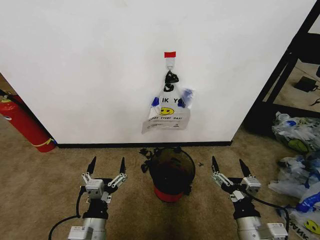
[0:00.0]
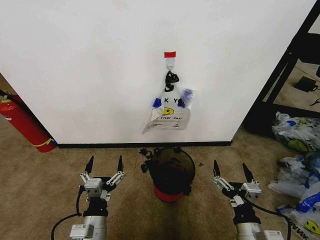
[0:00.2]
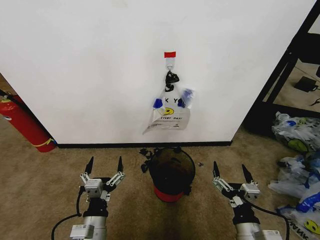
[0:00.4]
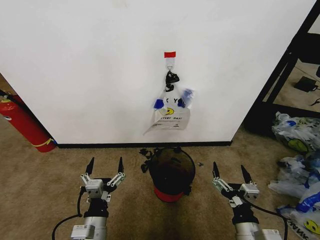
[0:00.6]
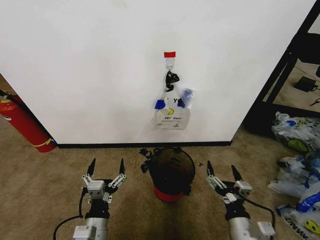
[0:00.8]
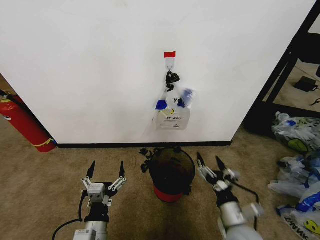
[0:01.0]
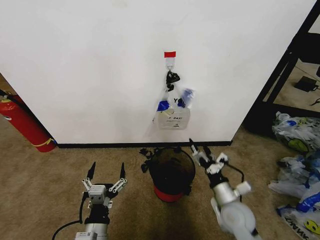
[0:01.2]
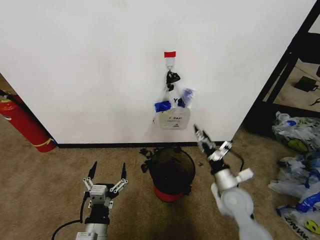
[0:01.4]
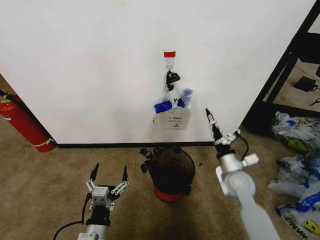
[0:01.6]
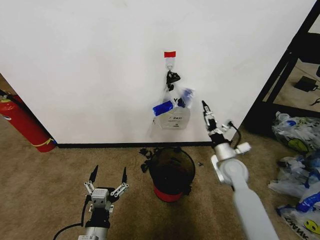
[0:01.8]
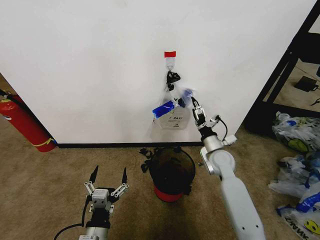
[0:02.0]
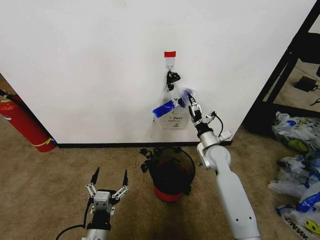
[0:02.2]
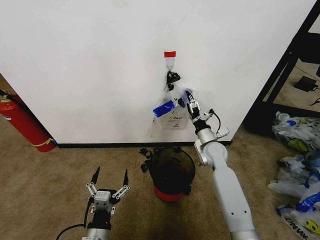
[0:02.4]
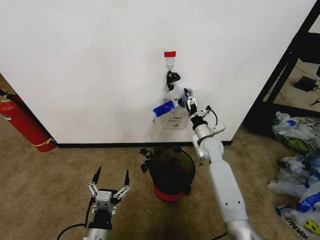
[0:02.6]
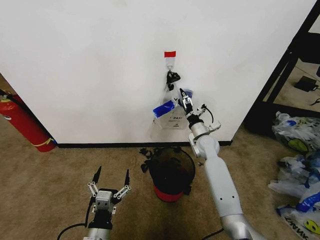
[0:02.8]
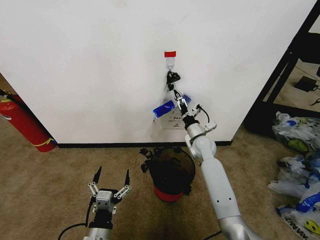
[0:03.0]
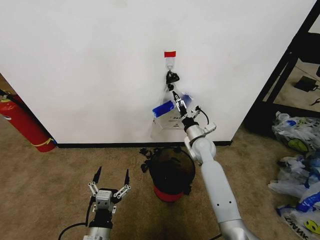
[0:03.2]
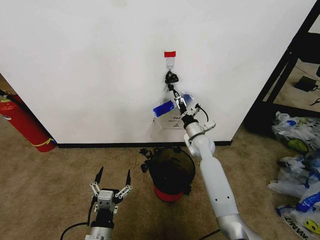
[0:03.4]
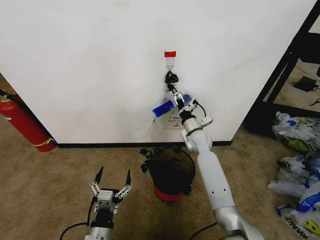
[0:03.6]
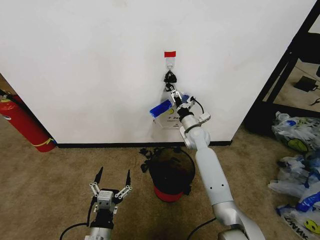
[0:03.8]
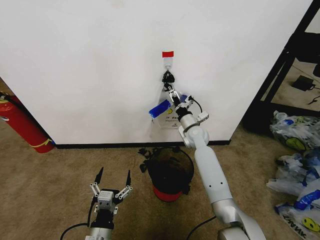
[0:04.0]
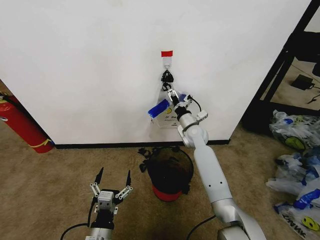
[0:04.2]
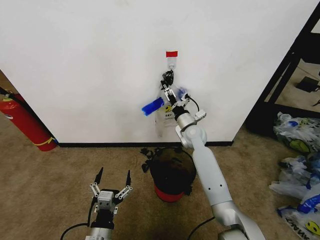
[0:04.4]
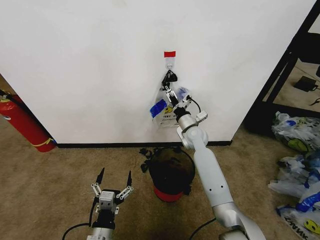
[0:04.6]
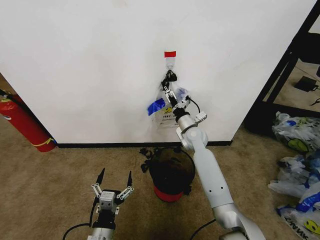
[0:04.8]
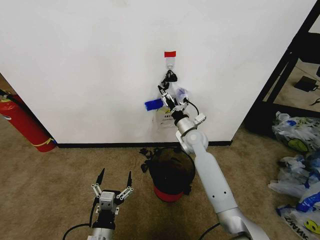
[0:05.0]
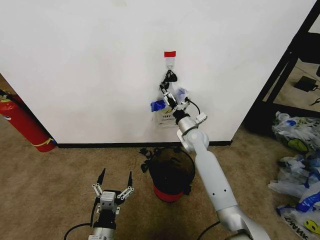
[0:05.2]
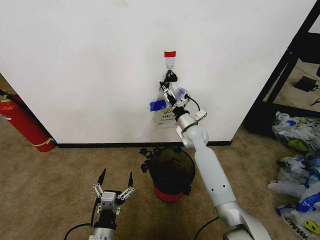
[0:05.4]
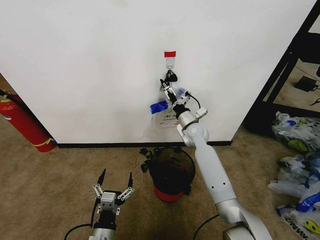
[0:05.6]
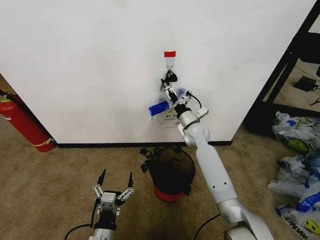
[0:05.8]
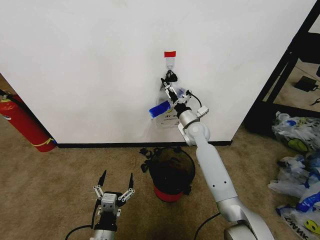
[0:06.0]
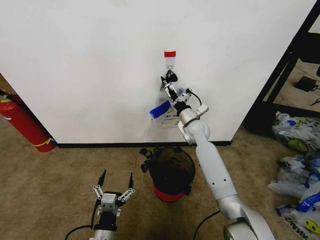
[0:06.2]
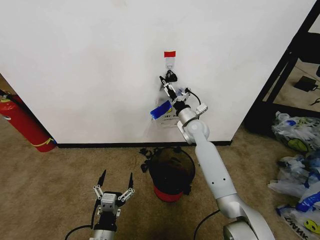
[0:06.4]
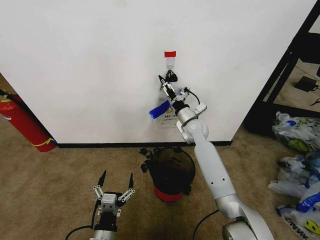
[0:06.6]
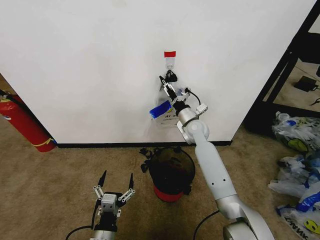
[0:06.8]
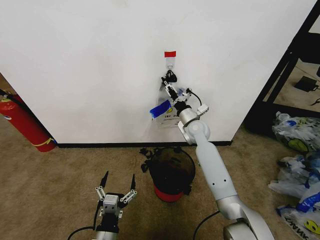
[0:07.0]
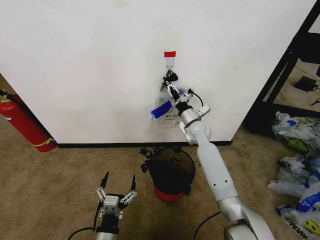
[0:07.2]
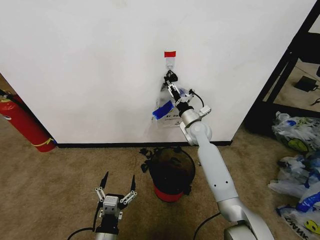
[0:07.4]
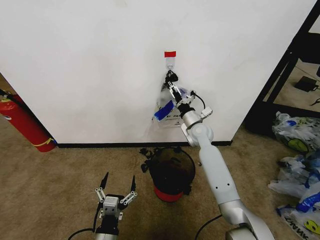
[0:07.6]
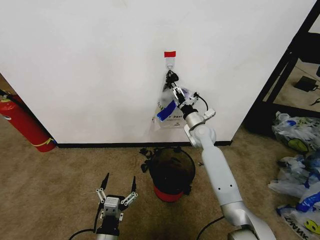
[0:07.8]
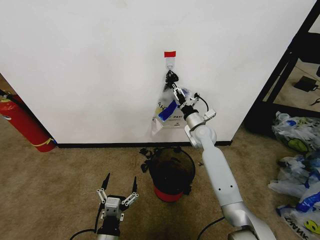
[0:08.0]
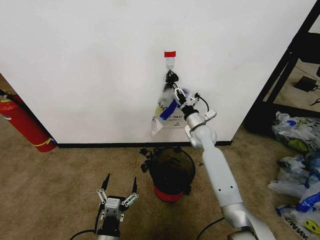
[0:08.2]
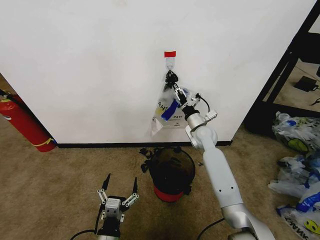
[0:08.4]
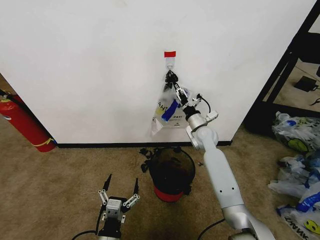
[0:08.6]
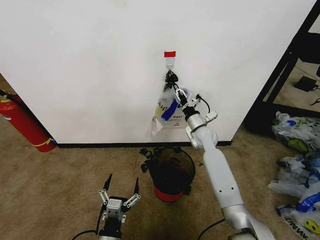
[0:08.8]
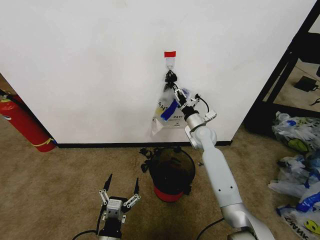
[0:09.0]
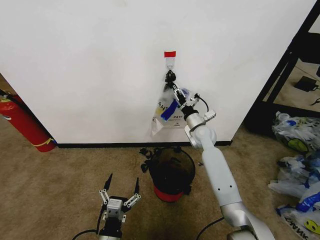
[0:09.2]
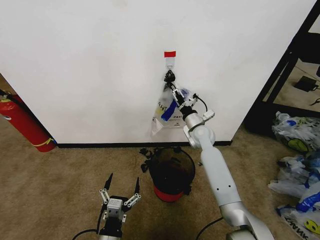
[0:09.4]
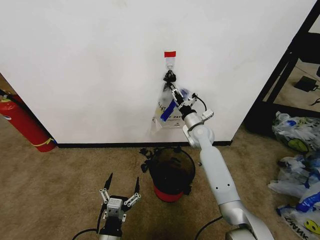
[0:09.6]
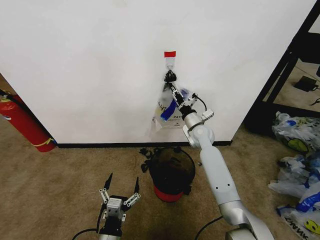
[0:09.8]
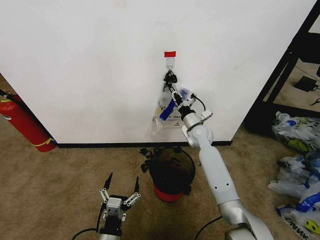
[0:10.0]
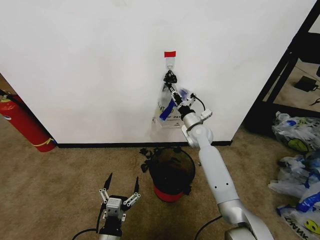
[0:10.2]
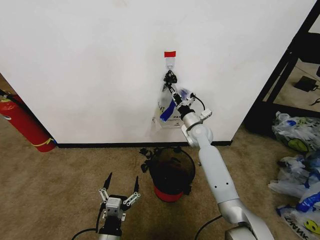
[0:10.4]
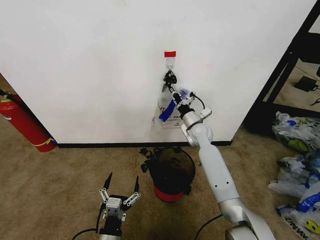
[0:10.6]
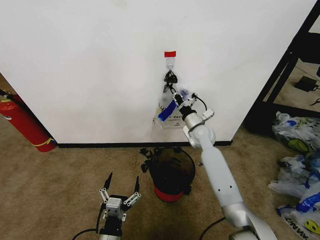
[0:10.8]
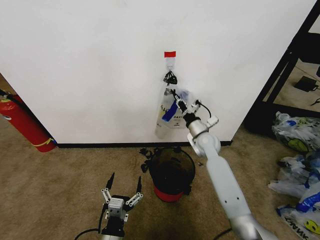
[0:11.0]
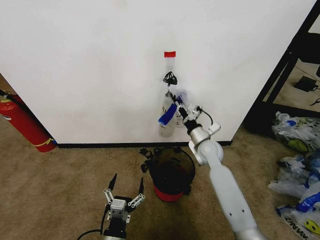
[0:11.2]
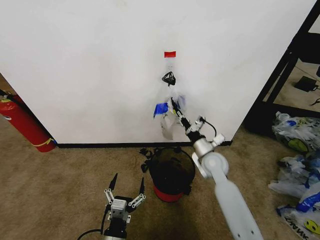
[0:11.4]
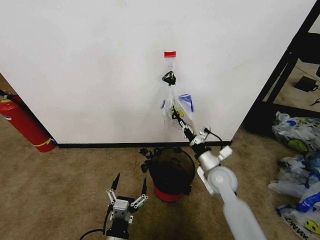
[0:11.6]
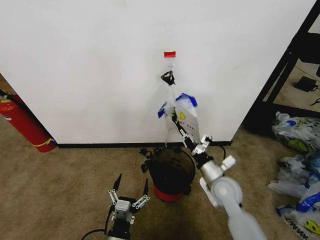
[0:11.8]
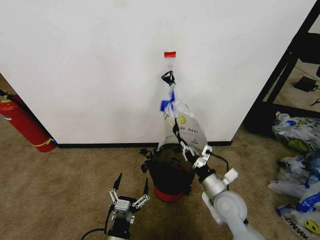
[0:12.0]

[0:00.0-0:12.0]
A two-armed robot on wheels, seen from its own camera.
Task of the whole recording: Pick up the garbage bag from the wall and place it over the trash bin.
0:01.6 to 0:03.0: The right gripper shifts some 15 cm forward and to the left.
0:03.0 to 0:04.4: The right gripper changes place by roughly 5 cm.
0:04.4 to 0:06.0: There are only small adjustments of the grippers.
0:06.0 to 0:07.6: Neither gripper changes place.
0:07.6 to 0:09.0: There are only small adjustments of the grippers.
0:09.0 to 0:10.4: The right gripper closes up.
0:10.4 to 0:12.0: The right gripper travels backward by roughly 25 cm.

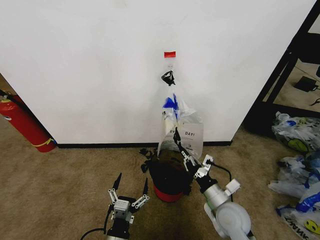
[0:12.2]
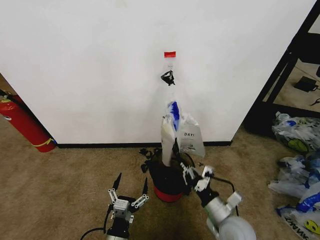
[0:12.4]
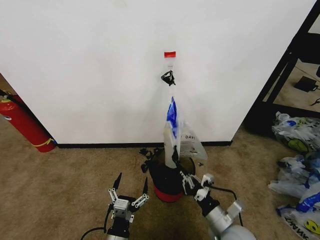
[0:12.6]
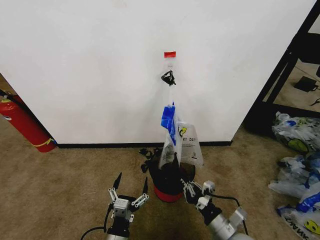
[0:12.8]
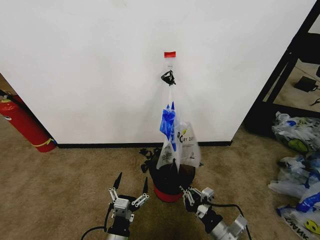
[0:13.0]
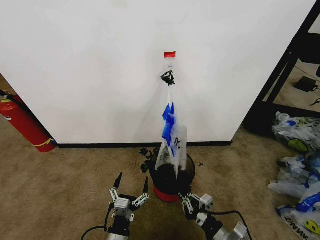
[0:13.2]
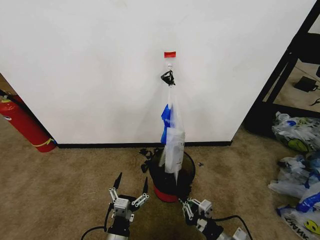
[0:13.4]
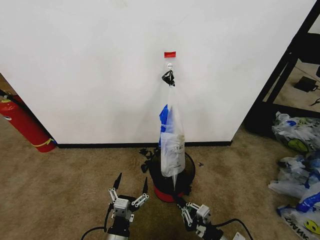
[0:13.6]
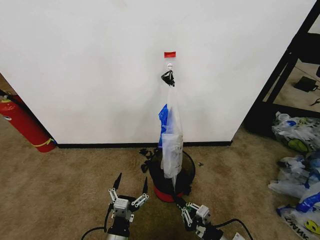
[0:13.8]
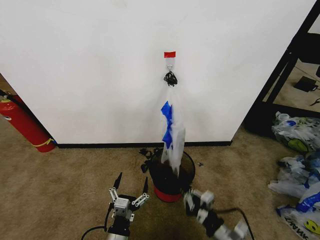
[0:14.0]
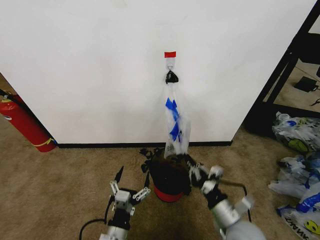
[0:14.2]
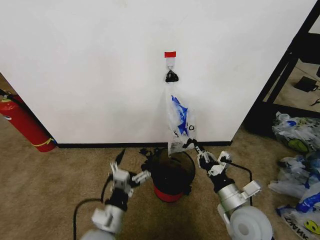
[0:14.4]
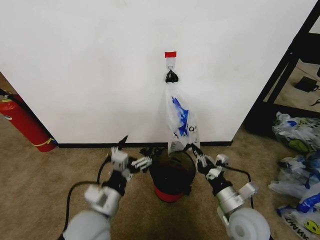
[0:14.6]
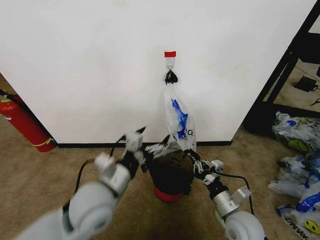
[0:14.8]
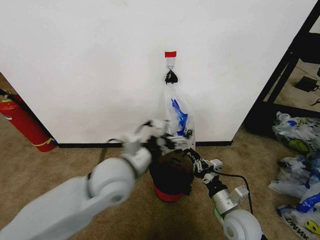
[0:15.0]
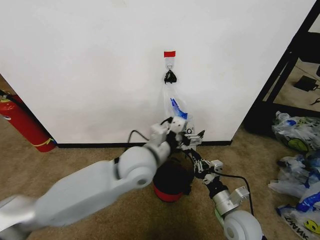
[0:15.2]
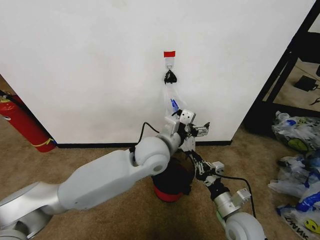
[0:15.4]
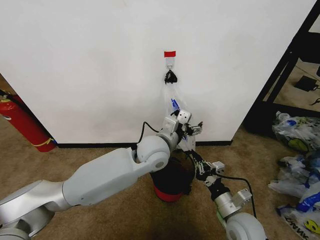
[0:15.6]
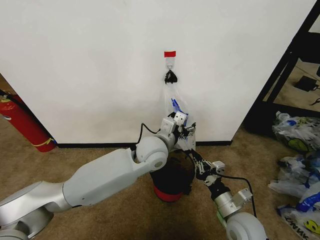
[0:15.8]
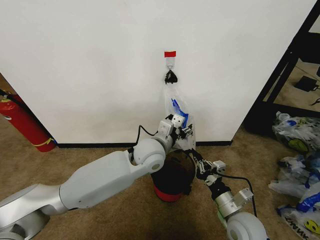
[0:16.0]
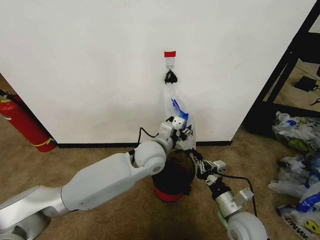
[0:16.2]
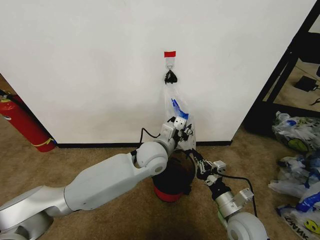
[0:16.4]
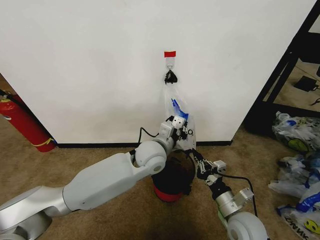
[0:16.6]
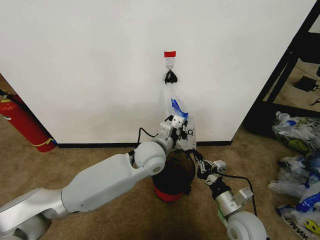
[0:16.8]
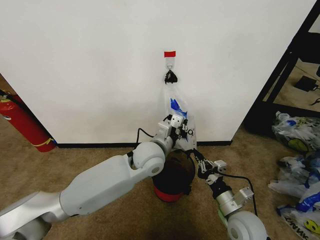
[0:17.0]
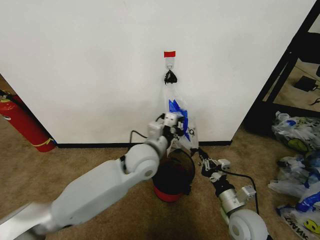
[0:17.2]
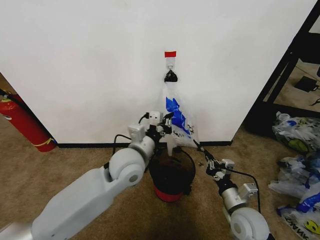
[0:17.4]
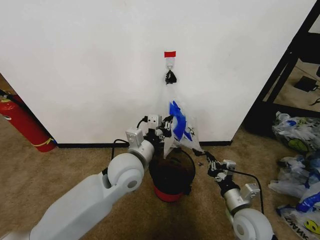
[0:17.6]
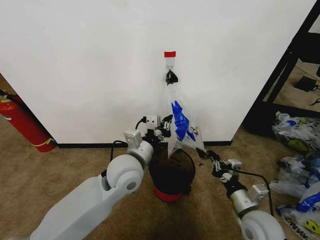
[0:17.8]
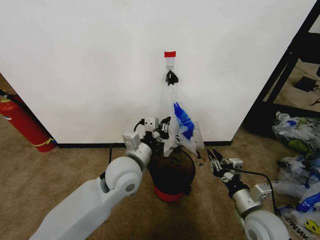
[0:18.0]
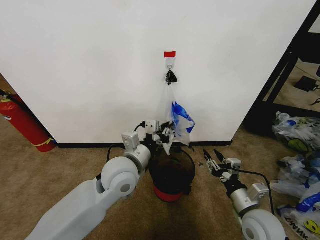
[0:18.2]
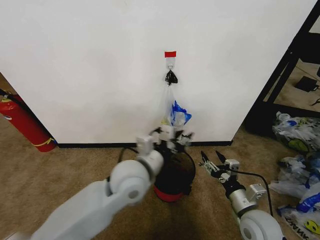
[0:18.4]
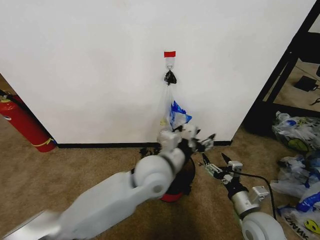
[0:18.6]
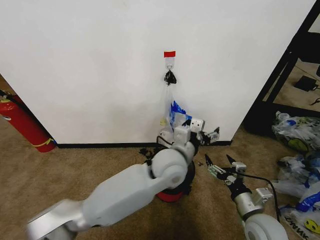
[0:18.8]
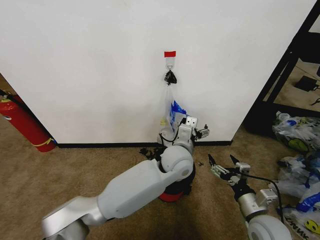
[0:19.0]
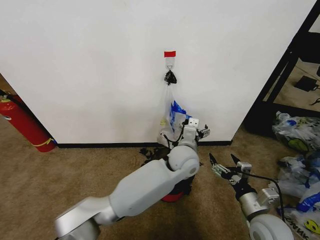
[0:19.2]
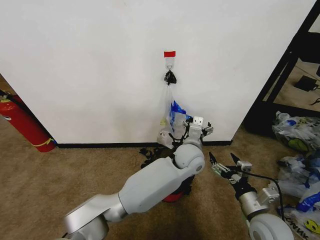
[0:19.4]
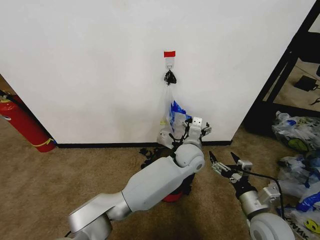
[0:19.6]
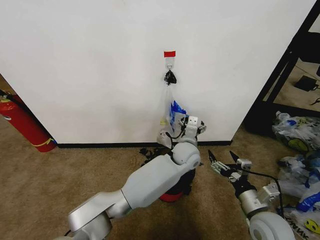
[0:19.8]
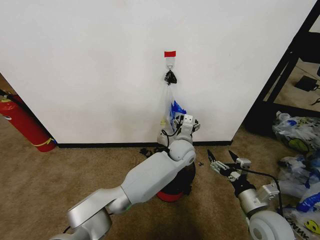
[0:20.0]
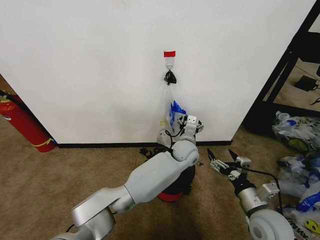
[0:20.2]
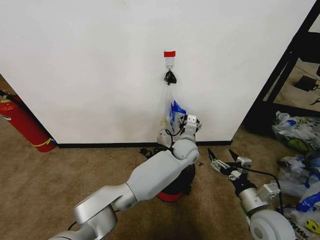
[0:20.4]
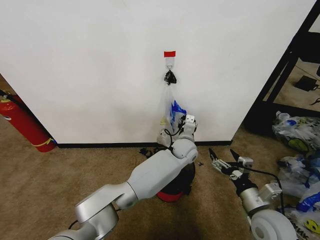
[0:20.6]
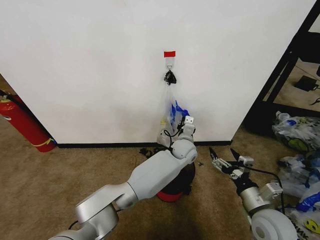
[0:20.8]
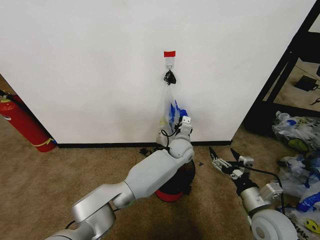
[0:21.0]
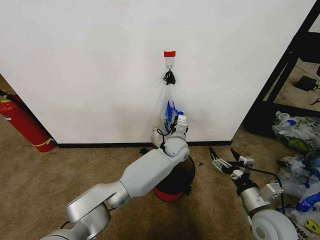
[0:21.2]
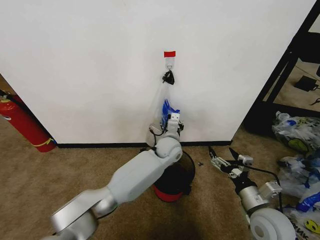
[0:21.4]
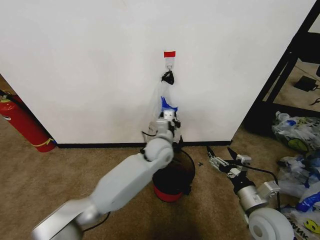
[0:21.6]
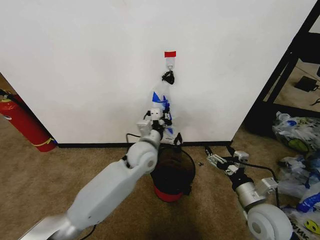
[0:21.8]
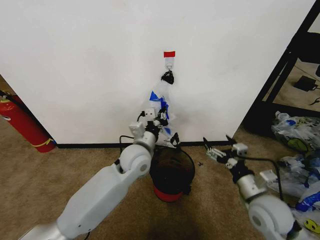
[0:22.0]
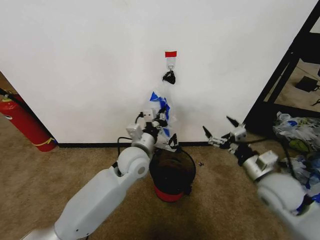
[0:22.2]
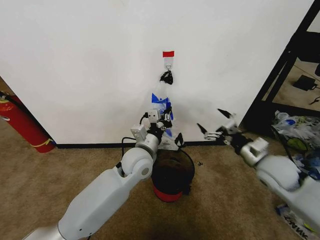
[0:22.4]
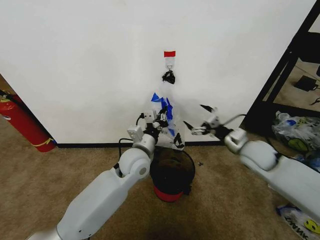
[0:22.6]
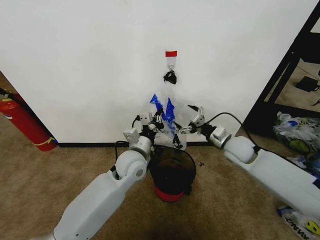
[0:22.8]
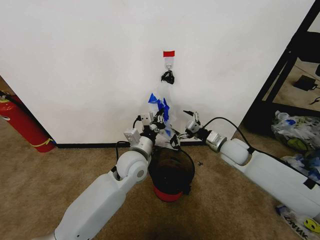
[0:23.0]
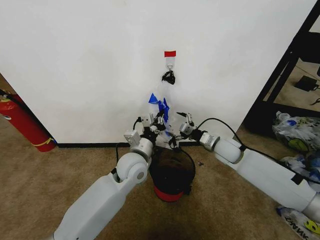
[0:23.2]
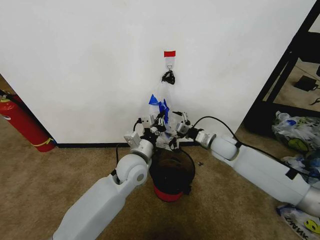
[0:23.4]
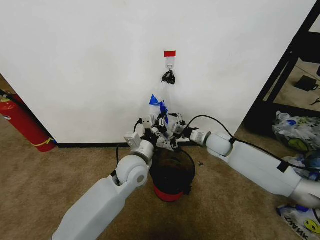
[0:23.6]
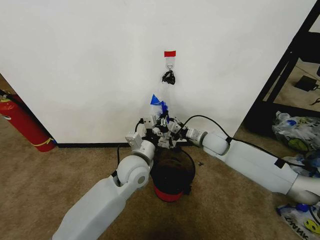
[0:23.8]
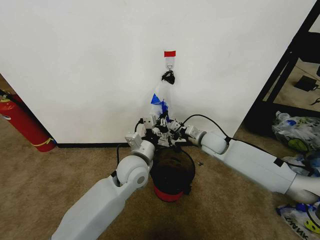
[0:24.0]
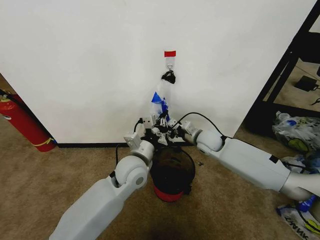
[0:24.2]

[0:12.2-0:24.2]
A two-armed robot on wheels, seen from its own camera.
Task of the whole recording: Pick up the garbage bag from the wall and place it over the trash bin.
0:12.2 to 0:13.8: The right gripper travels backward and downward by roughly 15 cm.
0:13.8 to 0:15.2: The right gripper travels forward and upward by roughly 10 cm. The left gripper travels upward and forward by approximately 30 cm.
0:15.2 to 0:16.6: The left gripper moves forward and downward, approximately 10 cm, and closes.
0:16.6 to 0:18.2: The right gripper opens its fingers, while the left gripper goes approximately 10 cm backward and to the left.
0:18.2 to 0:19.8: The left gripper heads to the right, forward and downward, covering some 25 cm, and opens its fingers. The right gripper opens its fingers.
0:19.8 to 0:21.2: The left gripper ends up some 5 cm from where it was, and closes up.
0:21.2 to 0:22.6: The left gripper travels to the left, backward and upward by some 20 cm, while the right gripper shifts about 20 cm forward and upward.
0:22.6 to 0:24.2: The right gripper shifts roughly 15 cm to the left and forward, and closes its fingers.
